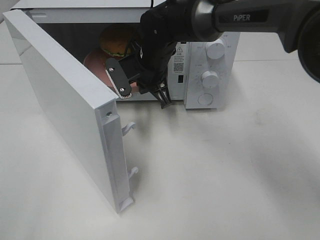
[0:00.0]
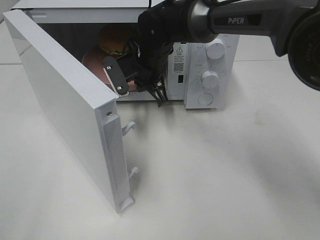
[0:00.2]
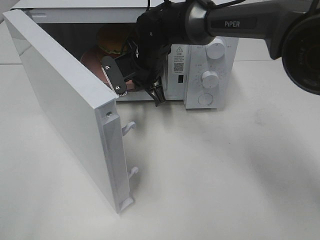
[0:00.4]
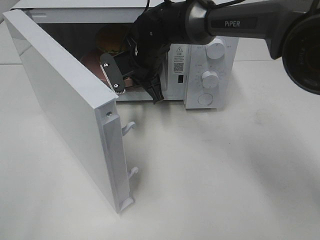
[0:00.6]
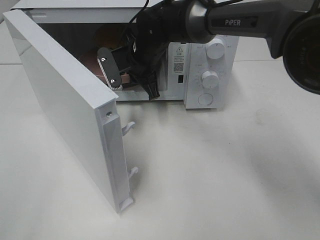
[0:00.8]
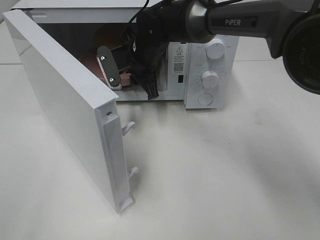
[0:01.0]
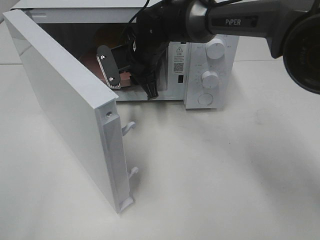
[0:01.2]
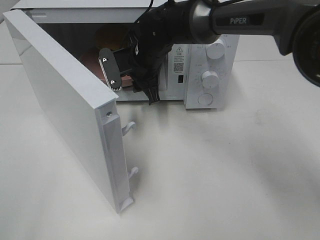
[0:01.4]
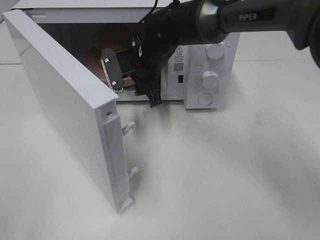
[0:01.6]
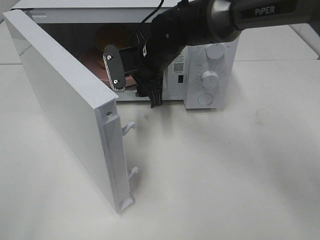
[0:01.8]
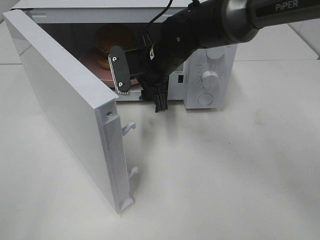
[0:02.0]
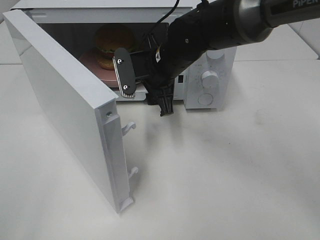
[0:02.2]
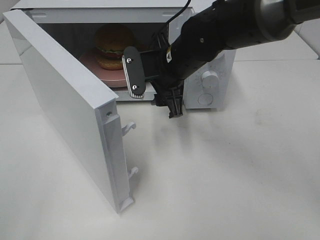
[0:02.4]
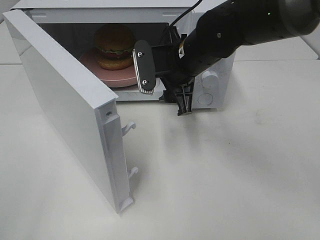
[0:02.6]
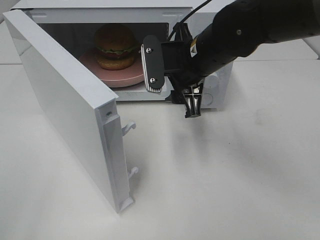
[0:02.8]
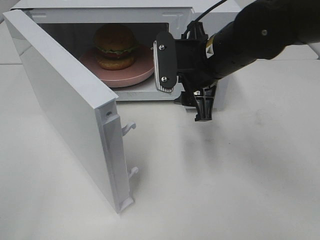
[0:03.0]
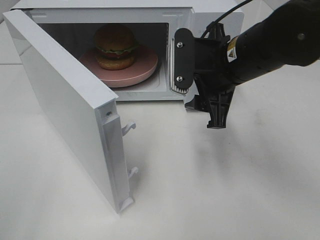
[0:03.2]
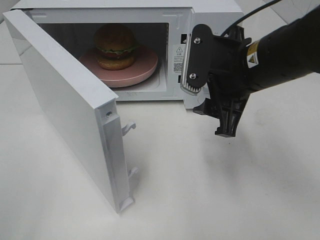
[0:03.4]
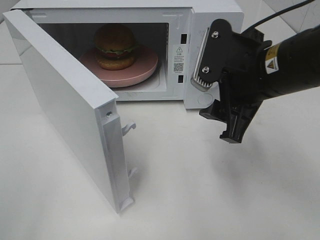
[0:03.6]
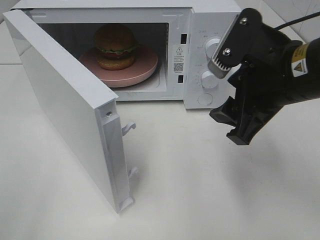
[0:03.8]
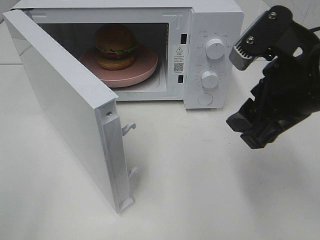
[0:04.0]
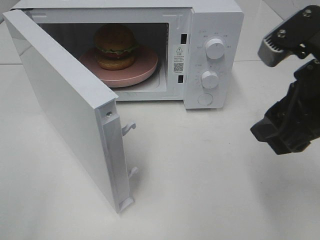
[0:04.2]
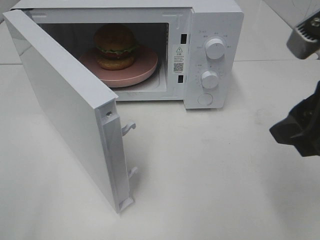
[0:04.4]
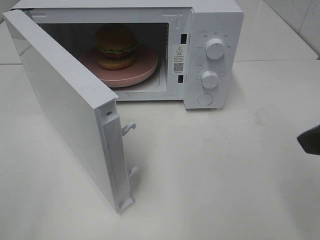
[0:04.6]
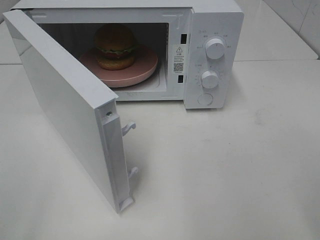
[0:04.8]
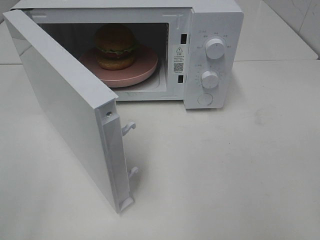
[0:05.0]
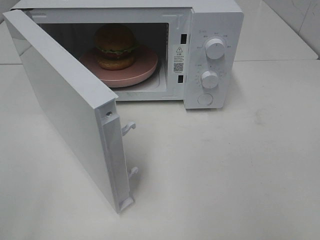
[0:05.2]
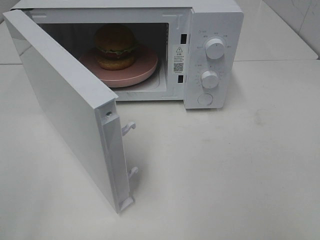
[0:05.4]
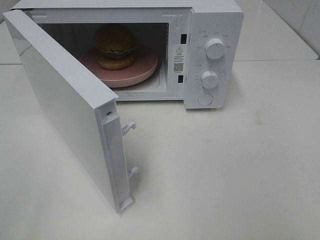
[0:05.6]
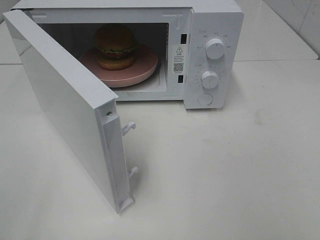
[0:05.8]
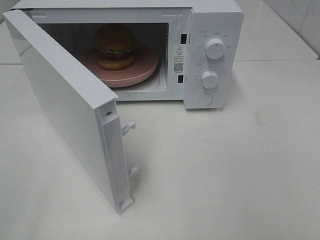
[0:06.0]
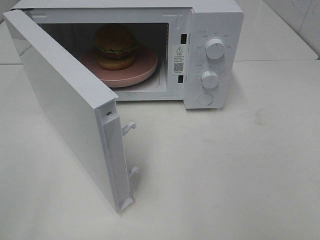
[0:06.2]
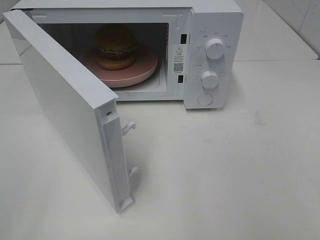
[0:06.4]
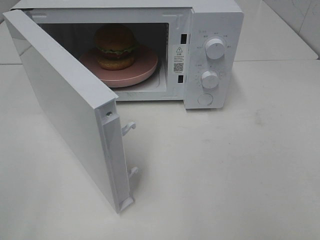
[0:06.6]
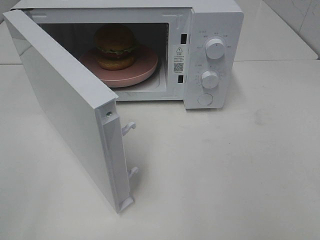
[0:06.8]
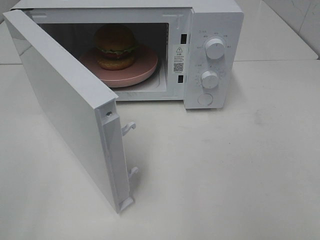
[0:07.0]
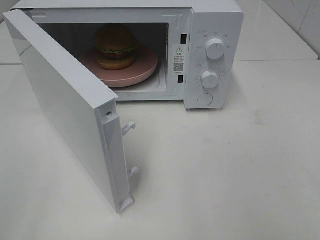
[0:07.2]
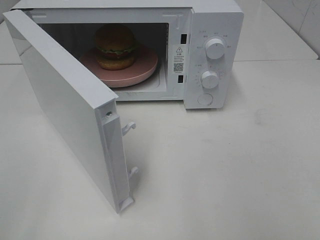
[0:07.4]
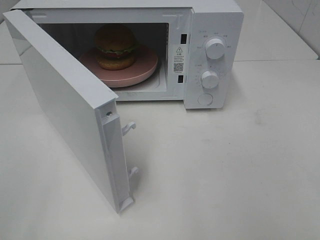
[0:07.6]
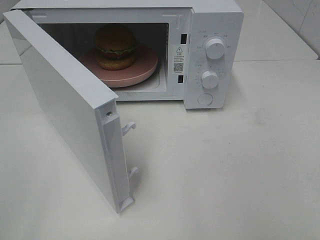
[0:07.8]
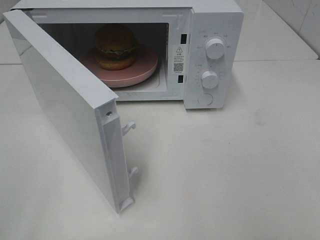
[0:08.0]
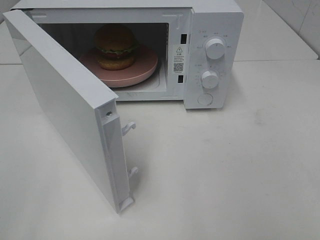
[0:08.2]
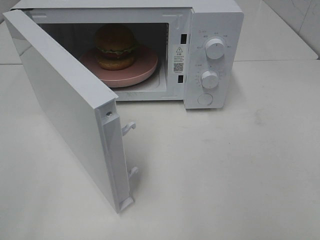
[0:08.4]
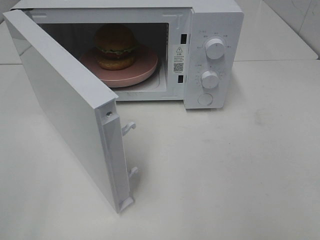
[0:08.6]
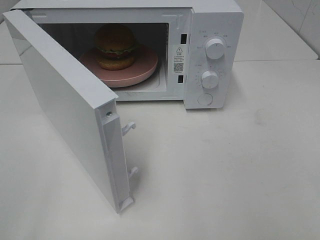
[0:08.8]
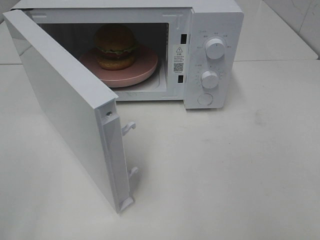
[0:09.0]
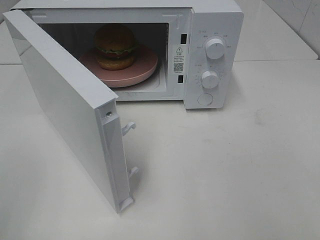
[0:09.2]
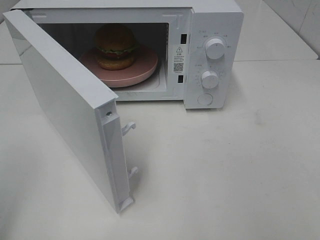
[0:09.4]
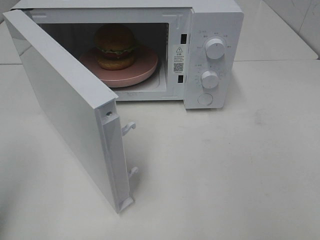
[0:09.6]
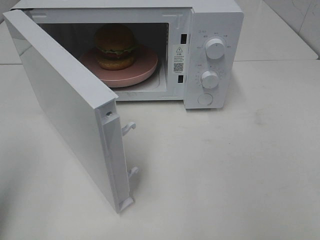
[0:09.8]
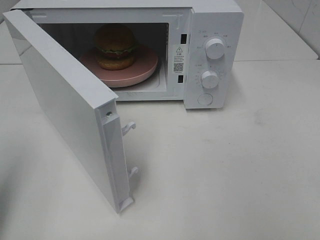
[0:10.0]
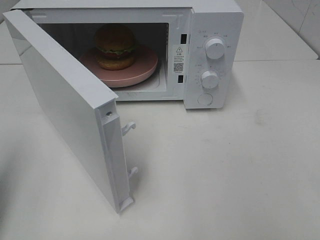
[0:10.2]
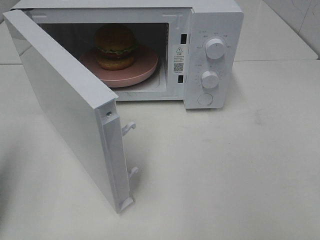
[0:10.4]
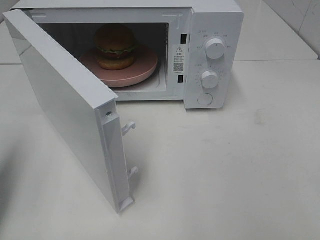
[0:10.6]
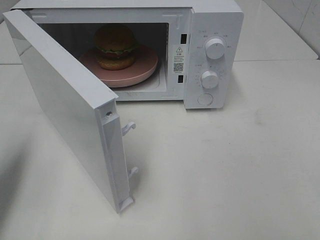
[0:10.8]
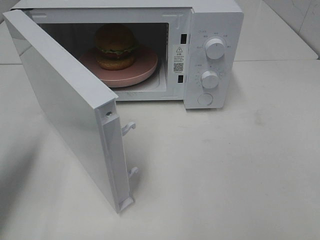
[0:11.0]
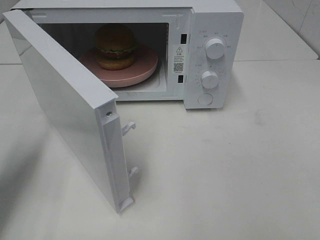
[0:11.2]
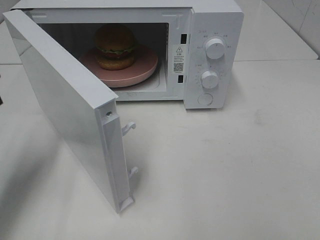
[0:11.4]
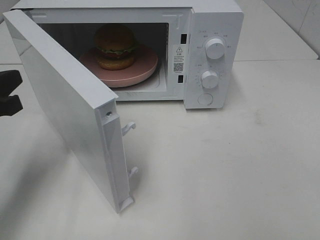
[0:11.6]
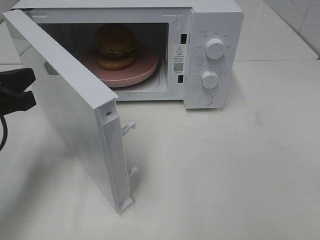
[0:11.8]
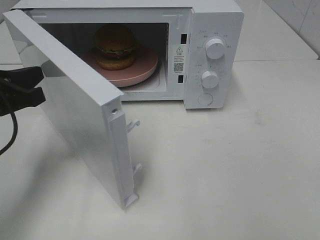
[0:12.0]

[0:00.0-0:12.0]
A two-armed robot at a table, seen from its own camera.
Task of the whole recording: Heat the burger.
0:00.0 to 0:01.6: The right gripper opens up.
0:01.6 to 0:03.0: The right gripper goes about 15 cm backward, to the right and upward.
0:03.0 to 0:04.4: The right gripper goes roughly 20 cm backward, to the right and upward.
0:04.4 to 0:06.0: The right gripper heads backward and to the right, covering approximately 20 cm.
0:09.0 to 0:10.4: The left gripper heads forward and downward, covering roughly 15 cm, and closes.
0:10.4 to 0:12.0: The left gripper goes roughly 15 cm forward, to the right and downward.

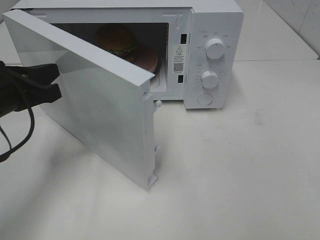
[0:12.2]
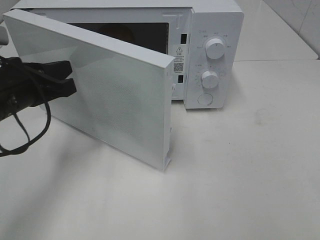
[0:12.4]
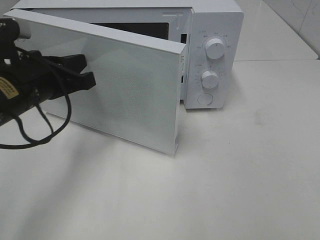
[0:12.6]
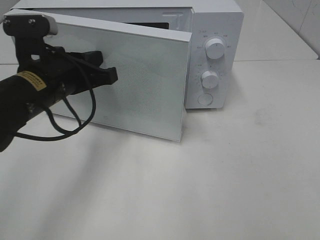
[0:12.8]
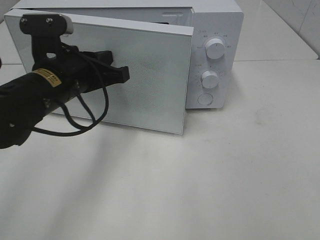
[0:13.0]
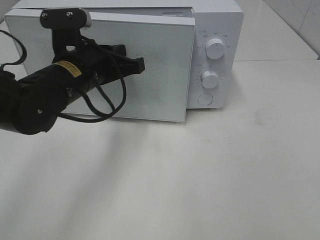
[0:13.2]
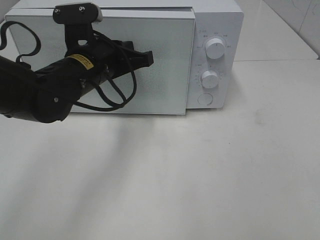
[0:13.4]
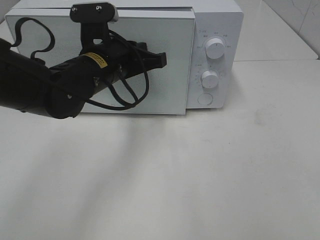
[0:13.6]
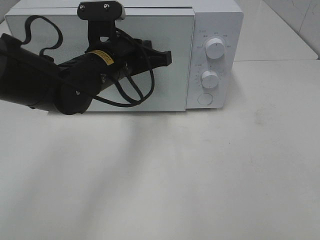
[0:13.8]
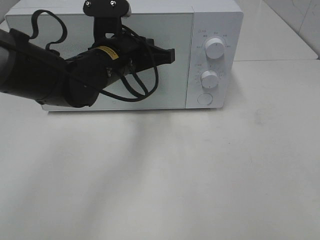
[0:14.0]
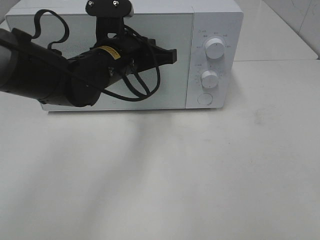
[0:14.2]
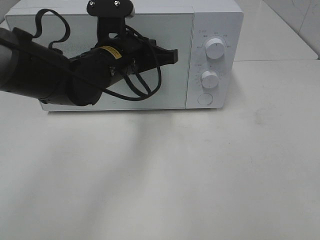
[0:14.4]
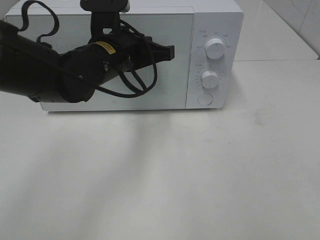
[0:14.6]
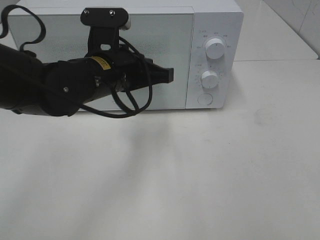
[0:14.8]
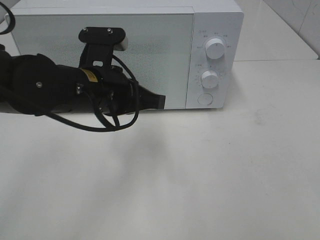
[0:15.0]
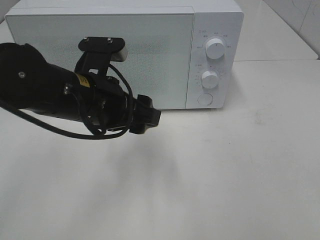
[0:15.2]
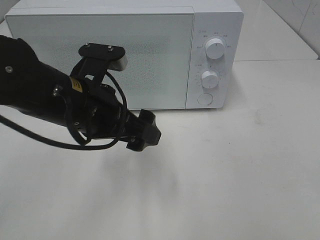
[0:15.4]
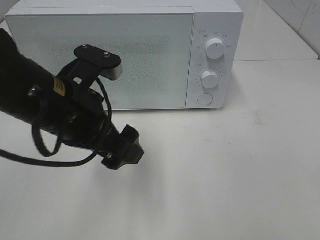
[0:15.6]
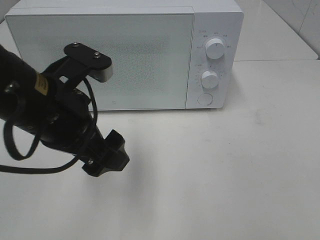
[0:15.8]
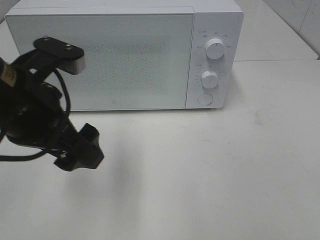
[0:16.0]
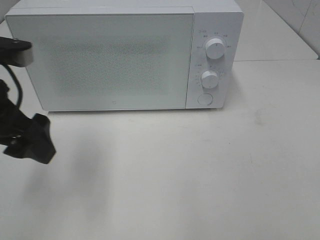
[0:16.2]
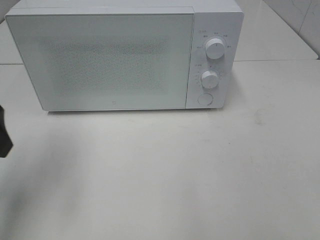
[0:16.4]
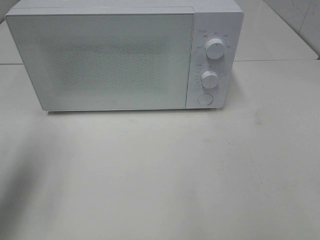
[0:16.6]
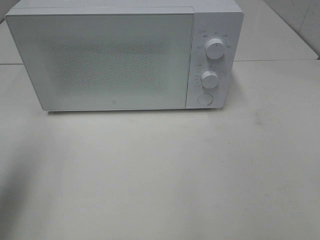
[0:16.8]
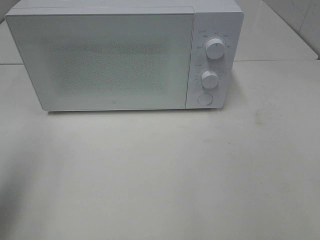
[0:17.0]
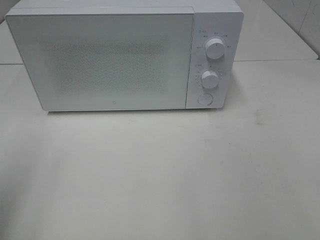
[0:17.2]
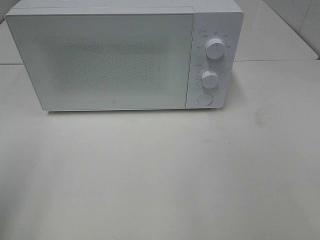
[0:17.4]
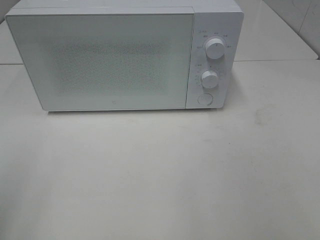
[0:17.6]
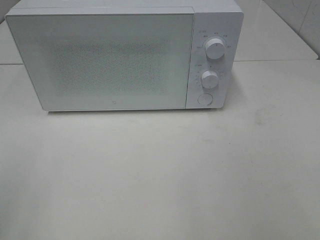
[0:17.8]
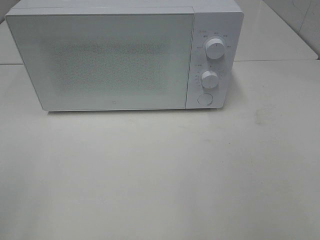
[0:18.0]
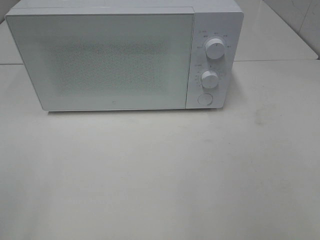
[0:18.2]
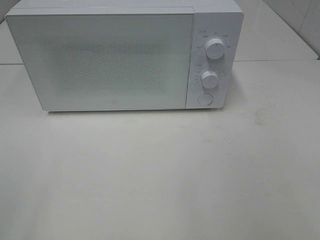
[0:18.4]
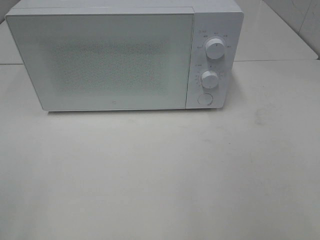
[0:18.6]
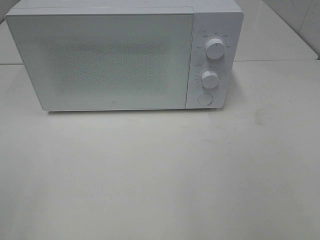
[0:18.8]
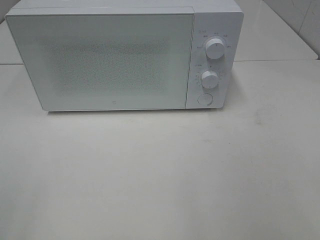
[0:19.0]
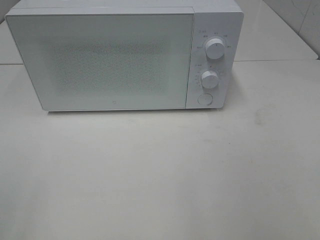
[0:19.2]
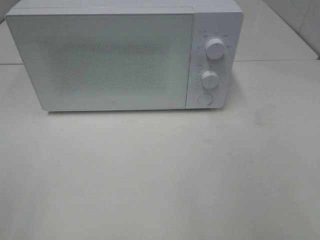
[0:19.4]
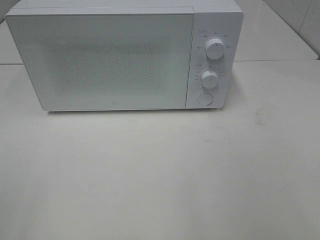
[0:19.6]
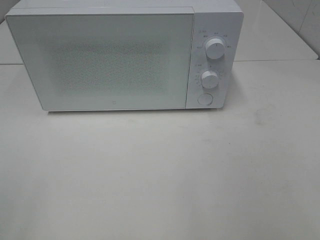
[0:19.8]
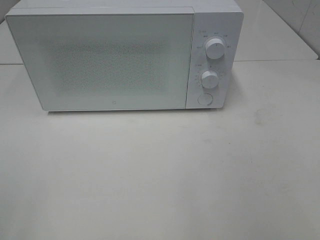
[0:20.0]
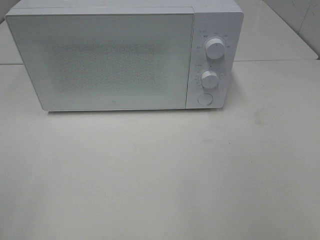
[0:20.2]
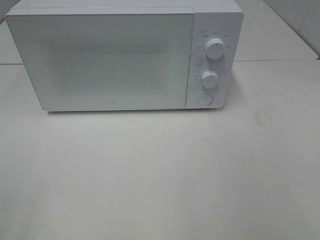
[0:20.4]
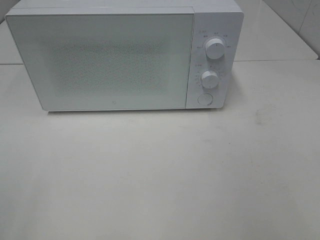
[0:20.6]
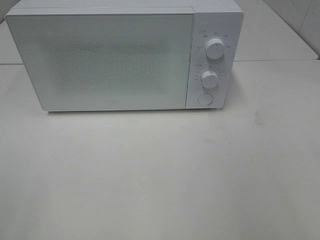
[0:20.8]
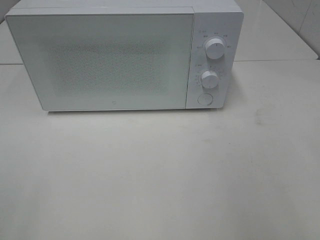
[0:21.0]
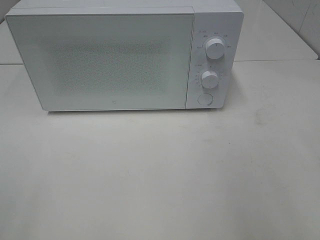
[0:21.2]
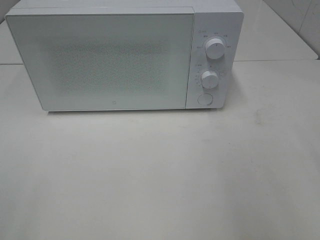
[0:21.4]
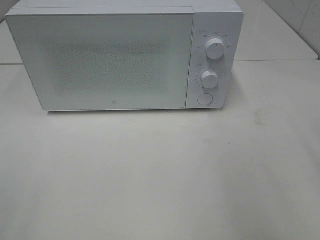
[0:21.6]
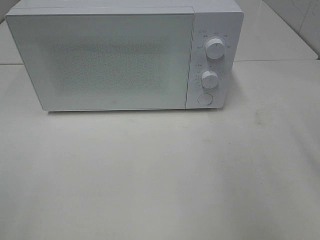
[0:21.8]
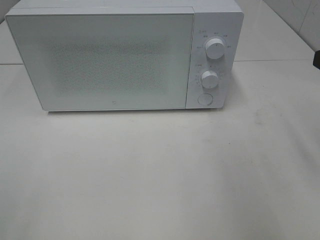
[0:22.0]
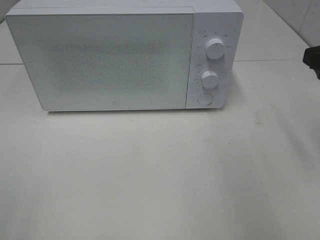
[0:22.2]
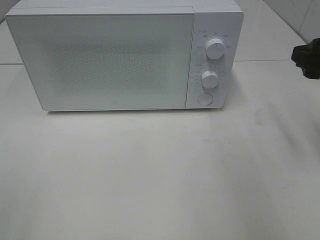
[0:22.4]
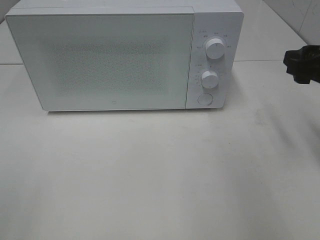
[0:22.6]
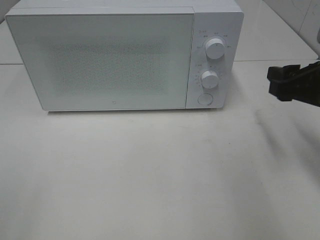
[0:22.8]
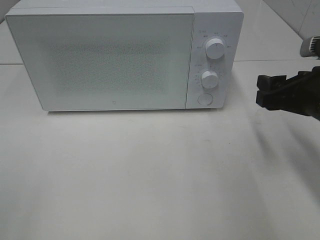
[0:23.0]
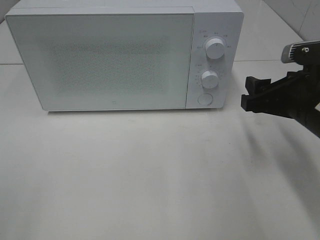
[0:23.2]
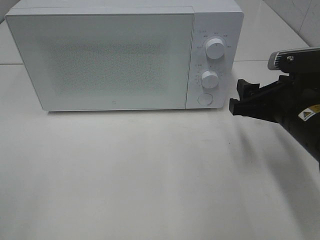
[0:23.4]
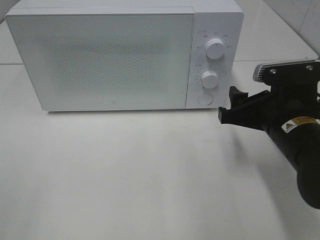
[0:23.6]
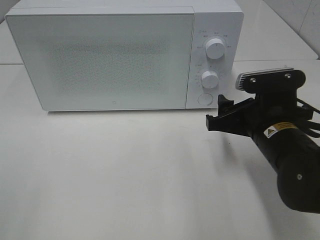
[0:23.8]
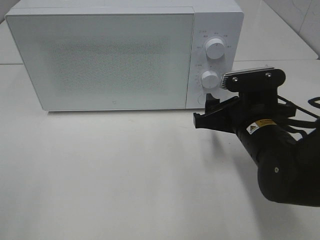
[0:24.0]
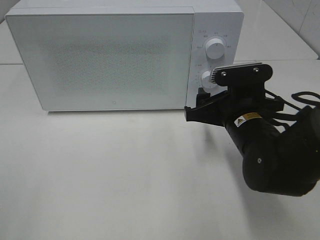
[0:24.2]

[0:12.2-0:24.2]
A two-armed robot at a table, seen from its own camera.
Task of the whole recording: Heat the burger.
Step, 0:12.2 to 0:14.6: Left hand: close the microwave door.
0:12.2 to 0:13.8: The left gripper goes about 15 cm to the right and forward.
0:13.8 to 0:15.2: The left gripper shifts approximately 10 cm backward, and opens its fingers.
0:15.2 to 0:16.6: The left gripper goes approximately 20 cm to the left and upward.
0:16.6 to 0:18.2: The left gripper travels backward by approximately 20 cm.
0:21.2 to 0:22.6: The right gripper heads forward and downward, covering roughly 15 cm.
0:22.6 to 0:24.2: The right gripper travels to the left and downward by roughly 15 cm.
